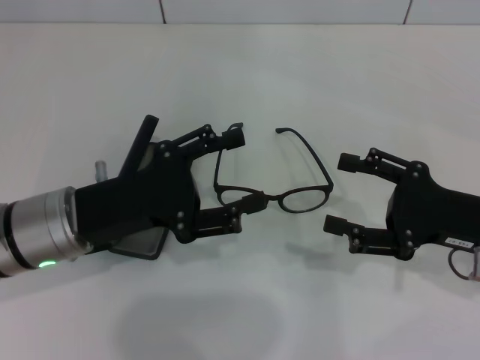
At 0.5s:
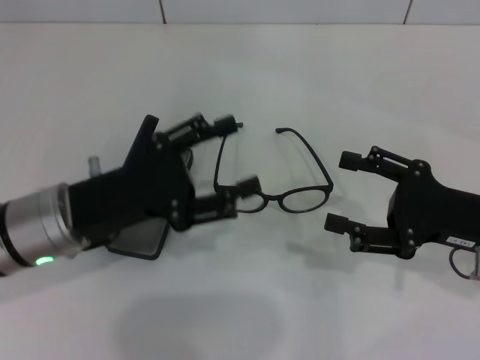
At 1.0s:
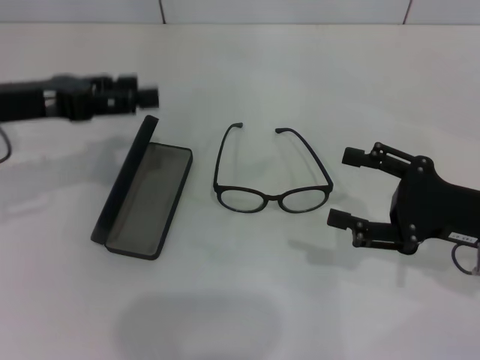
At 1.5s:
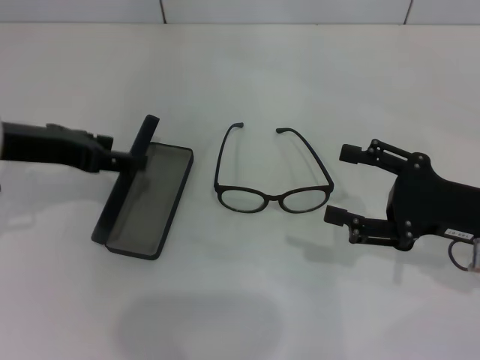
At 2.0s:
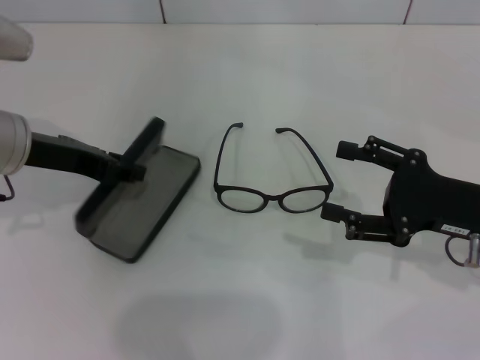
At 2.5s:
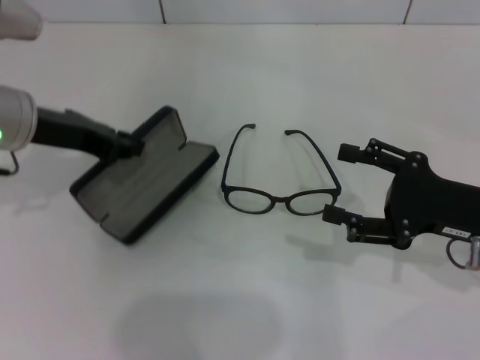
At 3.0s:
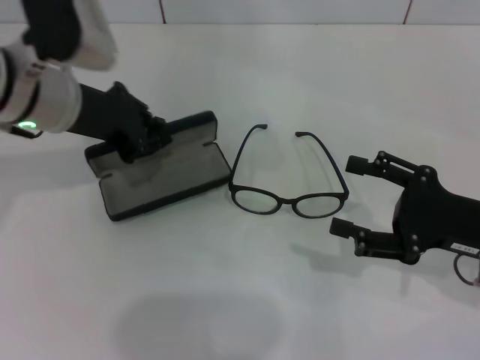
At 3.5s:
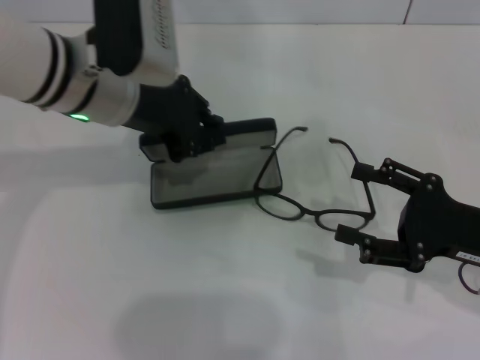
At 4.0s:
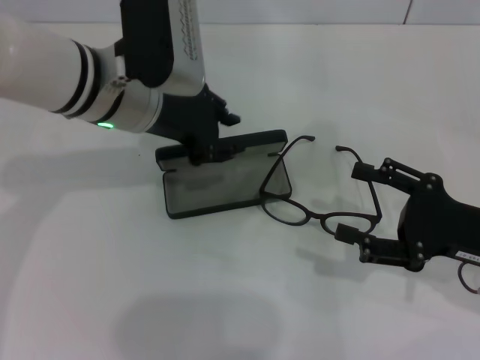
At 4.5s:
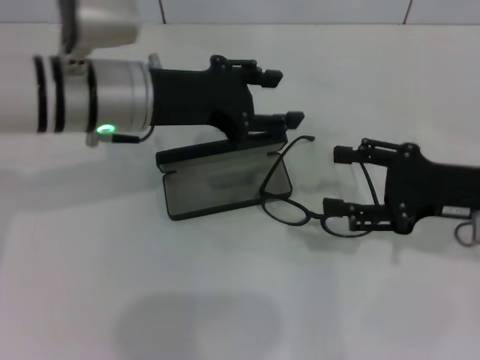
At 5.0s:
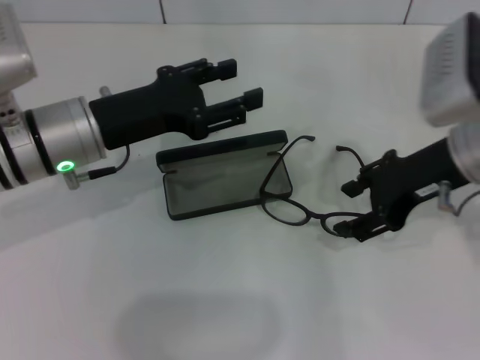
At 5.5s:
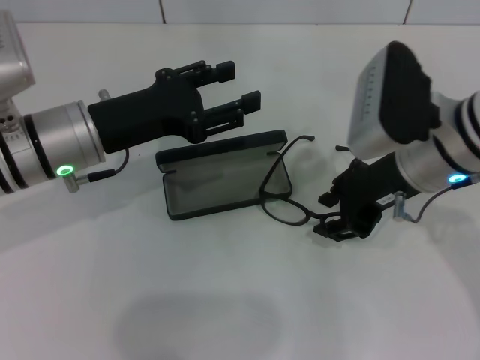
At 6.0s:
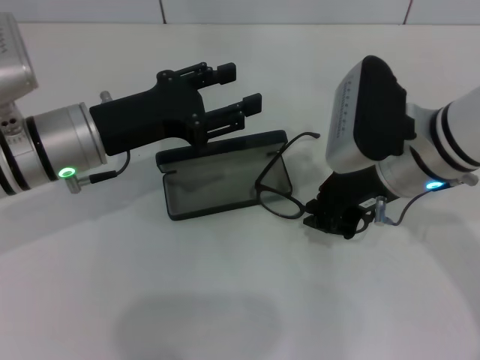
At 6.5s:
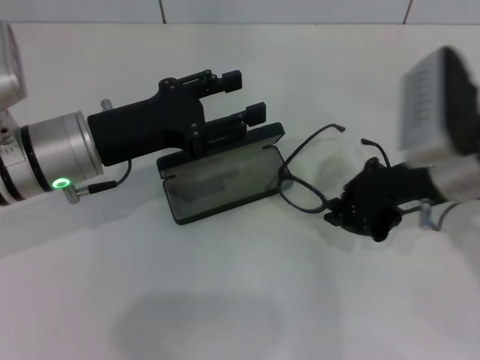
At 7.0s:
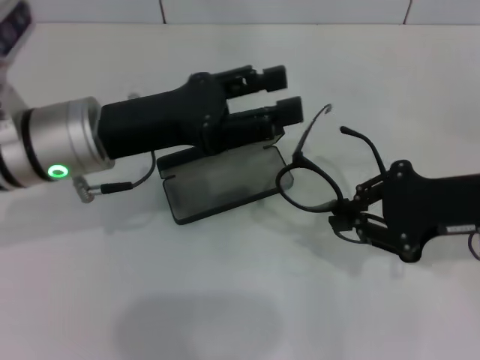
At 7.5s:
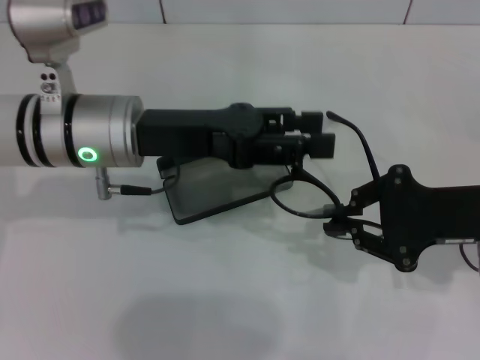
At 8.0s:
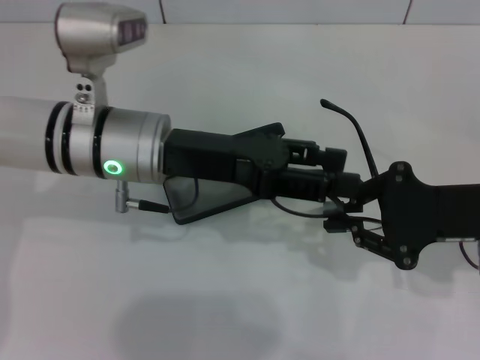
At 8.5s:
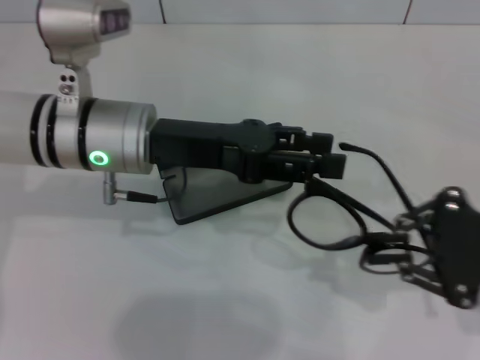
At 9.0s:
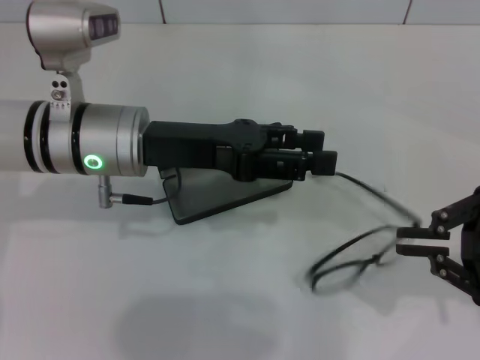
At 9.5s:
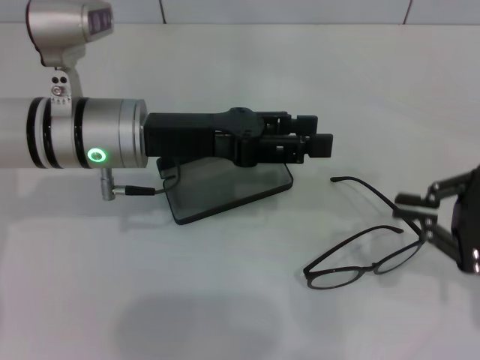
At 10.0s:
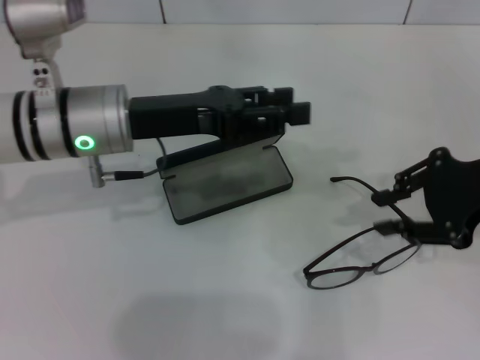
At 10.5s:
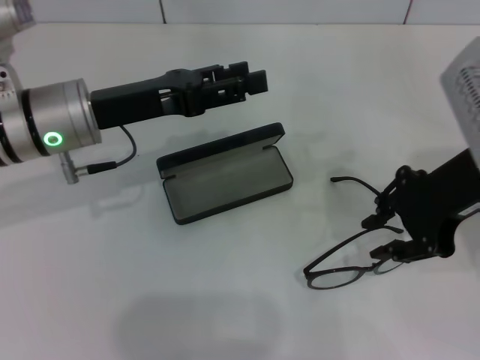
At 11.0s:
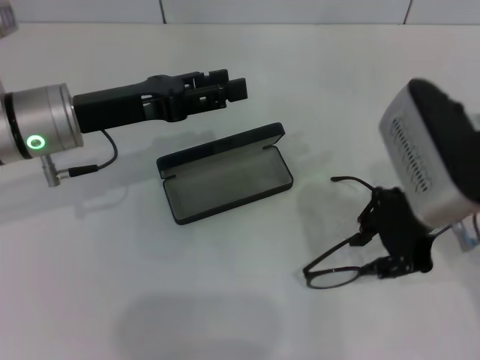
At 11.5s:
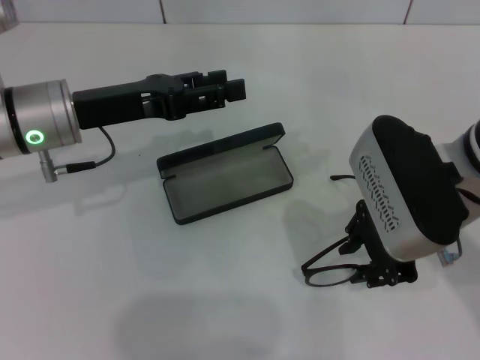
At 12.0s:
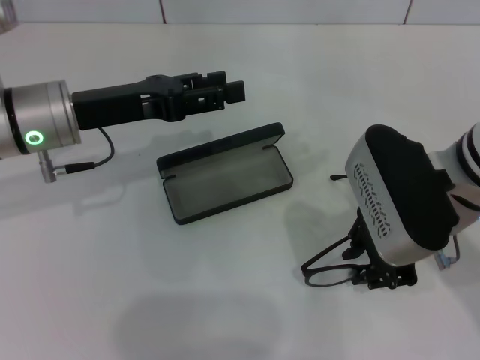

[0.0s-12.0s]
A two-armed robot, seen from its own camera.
Step, 0.0s to 2.0s: Grab the glasses case with your left hand.
Step, 2.5s to 3.5s: Place the glasses case in the center of the table with your left hand.
0.0s to 2.0s: The left gripper travels forward and upward by about 10 cm.
2.0s to 4.0s: The left gripper heads to the right, covering approximately 10 cm, and closes its fingers.
4.0s to 6.0s: The left gripper is displaced to the left and downward by some 10 cm, and opens; the right gripper goes some 15 cm to the left, forward and upward, and closes its fingers.
6.0s to 8.0s: The left gripper shifts roughly 5 cm to the right; the right gripper heads to the right and backward, covering roughly 10 cm.
8.0s to 10.0s: The right gripper shifts approximately 5 cm upward.
10.0s to 12.0s: The right gripper moves to the left, roughly 10 cm; the left gripper ends up some 5 cm from where it was.

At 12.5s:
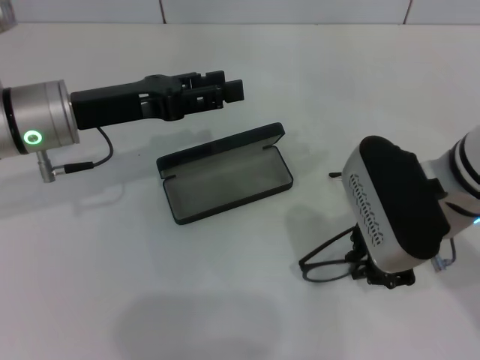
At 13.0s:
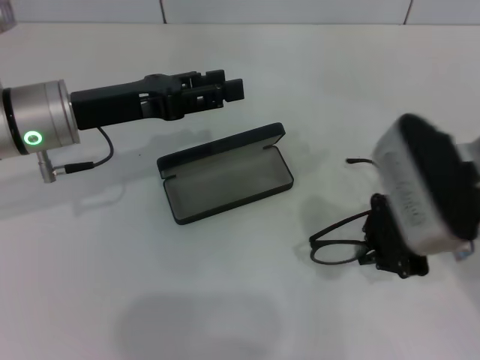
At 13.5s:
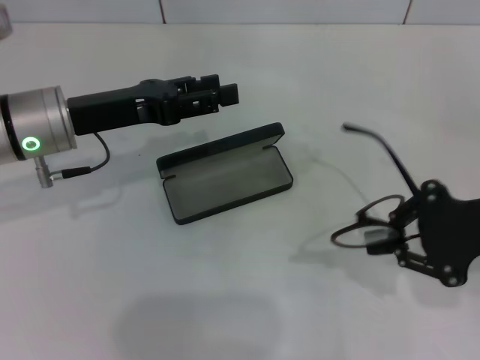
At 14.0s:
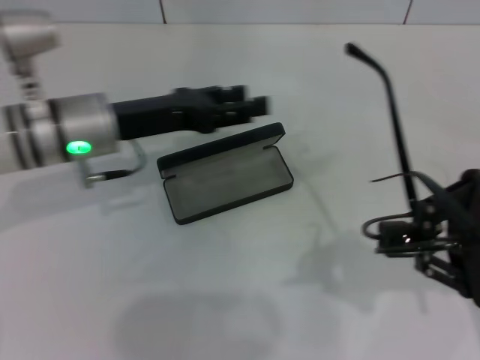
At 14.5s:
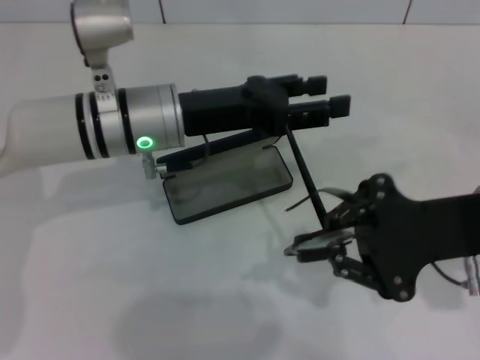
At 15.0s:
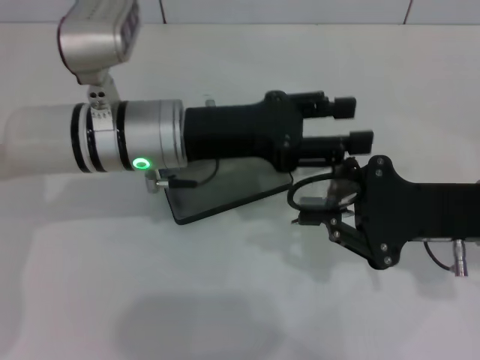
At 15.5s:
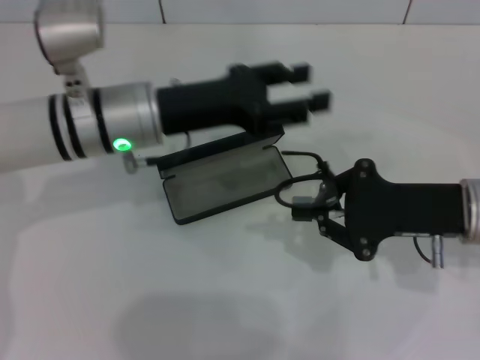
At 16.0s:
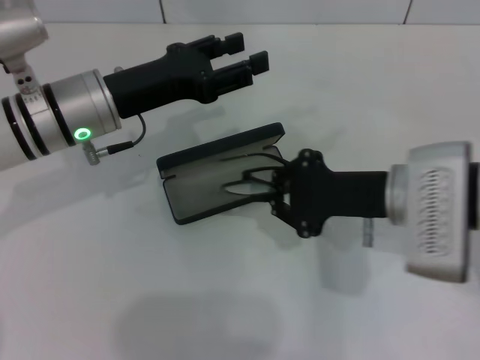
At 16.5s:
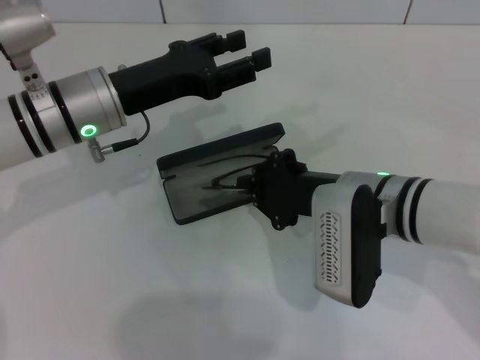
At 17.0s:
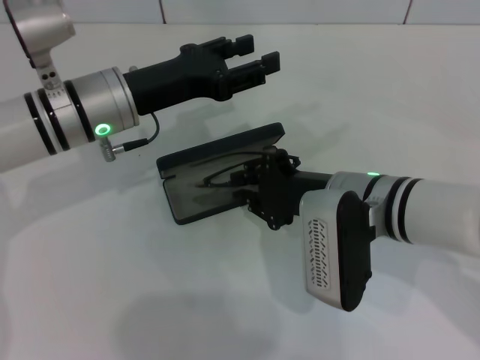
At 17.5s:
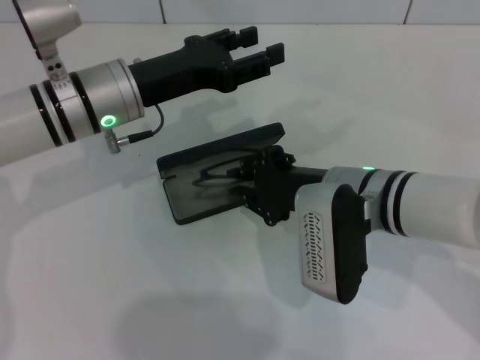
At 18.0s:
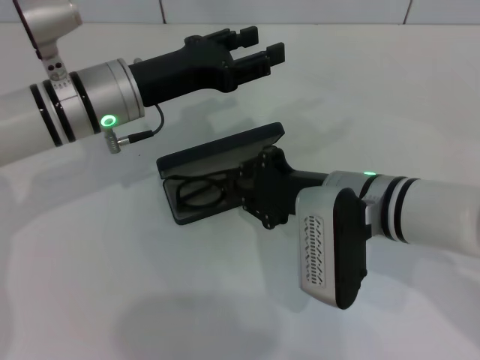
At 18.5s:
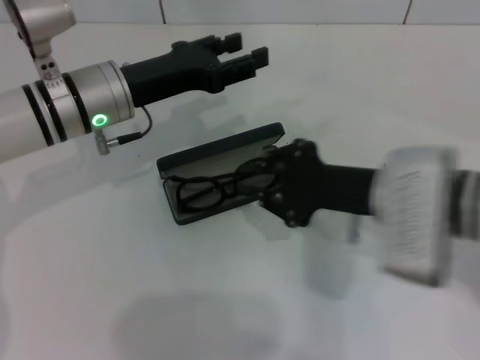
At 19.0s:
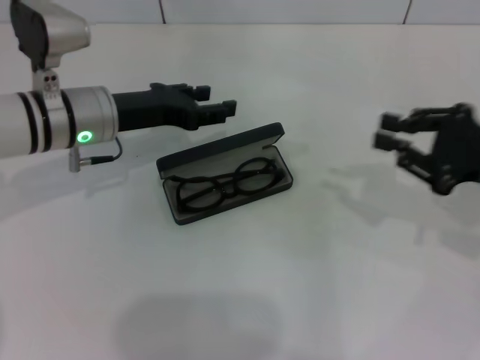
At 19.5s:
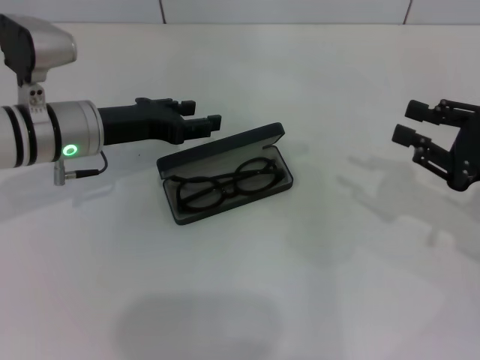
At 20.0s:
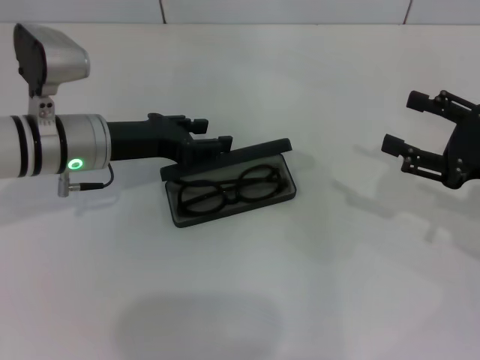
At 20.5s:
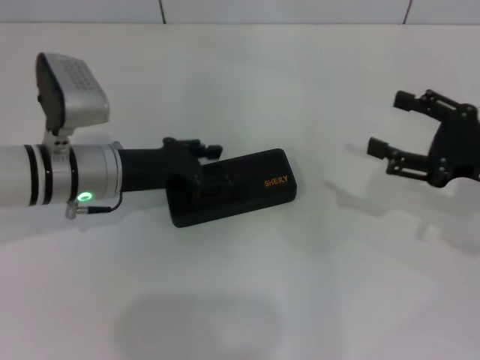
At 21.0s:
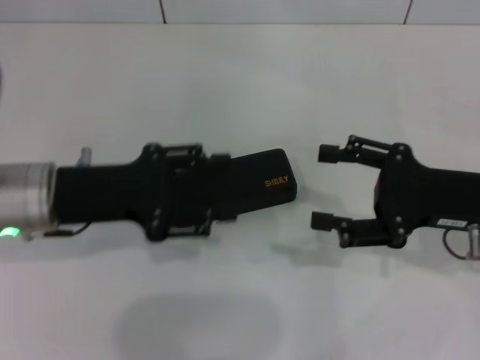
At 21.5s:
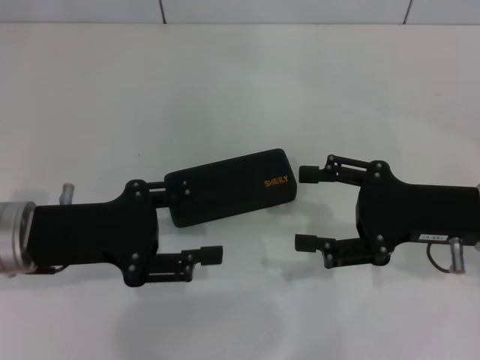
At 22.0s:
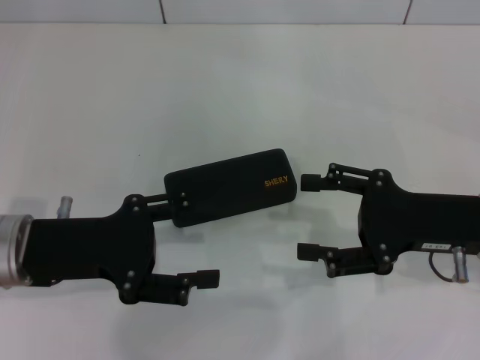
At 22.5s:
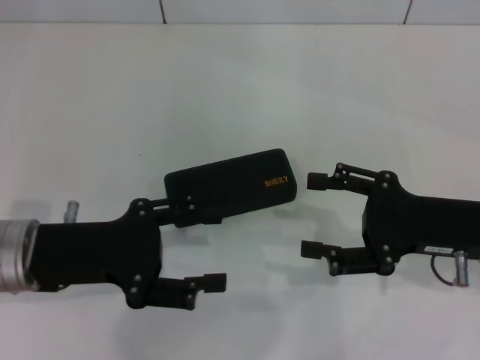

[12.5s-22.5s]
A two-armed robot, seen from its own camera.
Step, 13.0s to 15.0s: Fold the frame with your left hand.
Step, 15.5s to 18.0s: Put the glasses into the case with your right hand.
Step, 18.5s to 20.0s: Close the glasses case with your left hand.
12.5s to 14.5s: The two grippers go approximately 10 cm to the right.
14.5s to 16.5s: The right gripper heads to the left, covering some 10 cm; the left gripper heads to the left, covering about 5 cm.
16.5s to 18.5s: The grippers stay close to where they were, moving slightly.
18.5s to 20.5s: The left gripper ends up approximately 5 cm from where it was. Meanwhile the right gripper is displaced to the right by about 15 cm, and opens.
20.5s to 22.5s: The right gripper heads to the left, covering roughly 5 cm. The left gripper is displaced backward by about 10 cm.

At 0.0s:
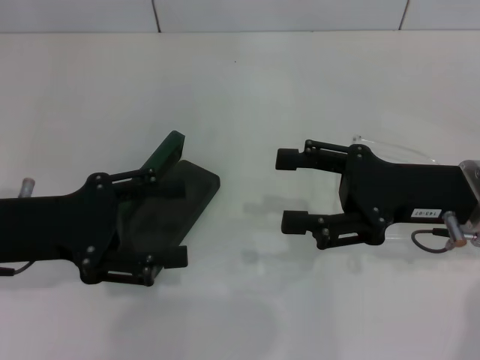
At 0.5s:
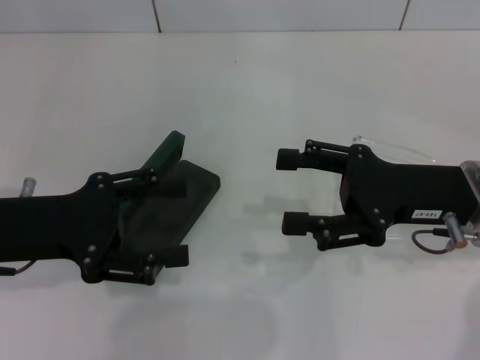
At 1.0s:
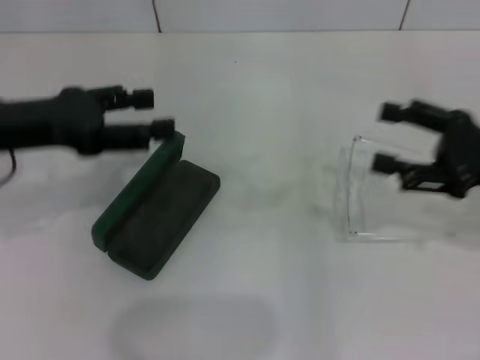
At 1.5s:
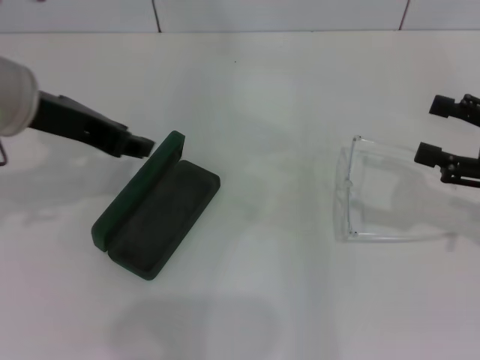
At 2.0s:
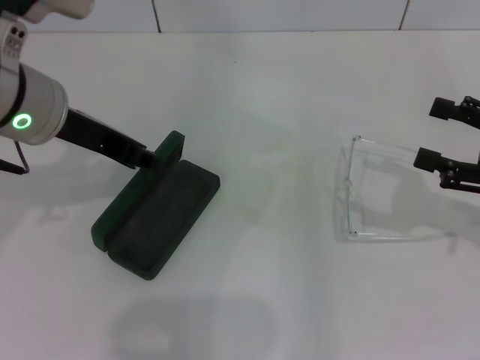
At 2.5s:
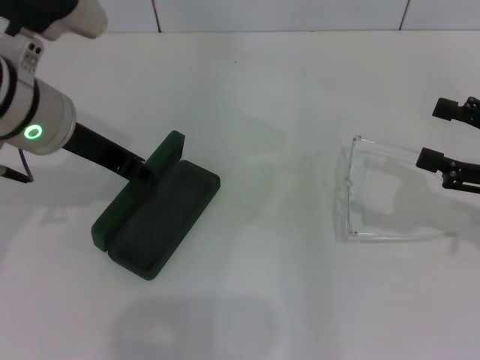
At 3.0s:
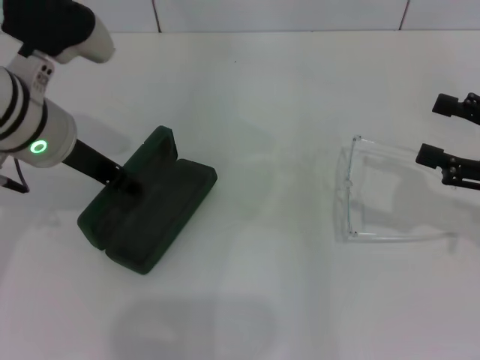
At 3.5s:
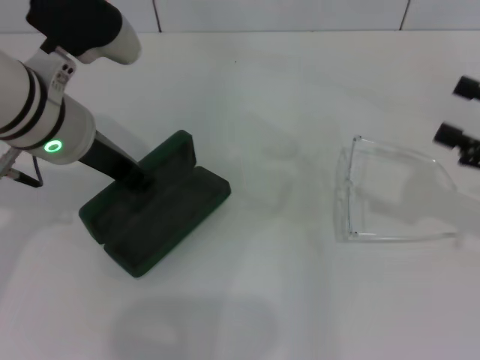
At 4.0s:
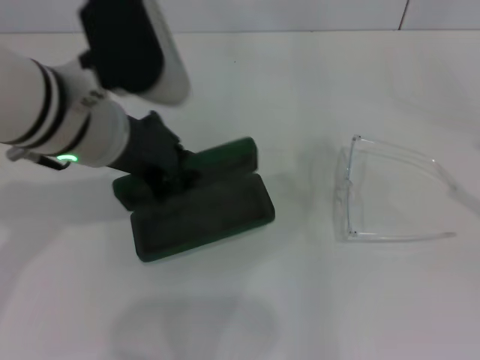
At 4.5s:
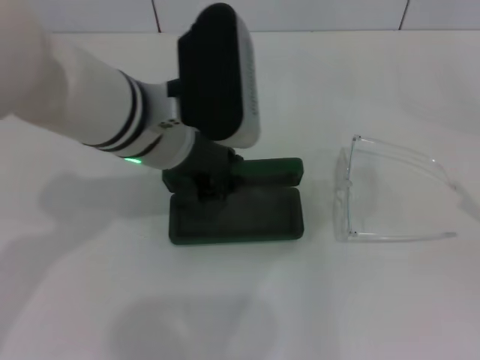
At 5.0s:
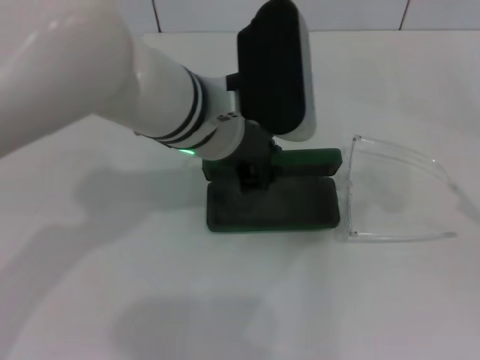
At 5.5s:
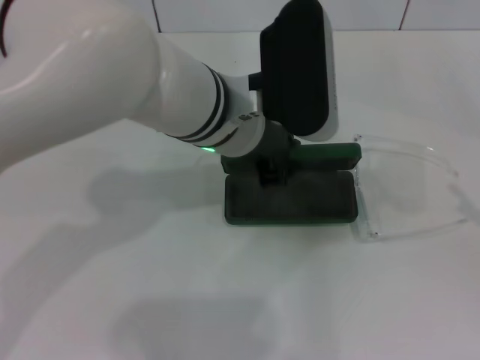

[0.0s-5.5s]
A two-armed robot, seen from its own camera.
Step, 0.0s to 3.0s: Grab the glasses case with your left hand.
0.0s to 2.0s: The right gripper heads to the right, covering roughly 10 cm; the left gripper travels upward, to the right and forward by some 15 cm, and closes.
2.0s to 3.5s: The grippers move only a little.
3.5s to 5.5s: The right gripper is displaced backward and to the right by approximately 10 cm, while the left gripper moves to the right, about 15 cm.
